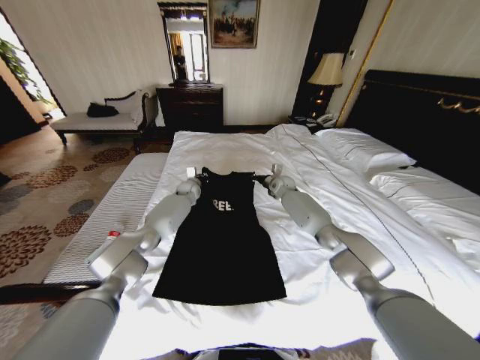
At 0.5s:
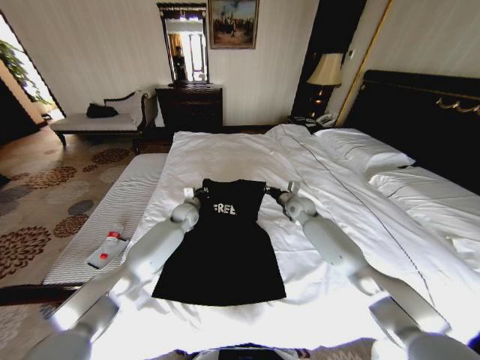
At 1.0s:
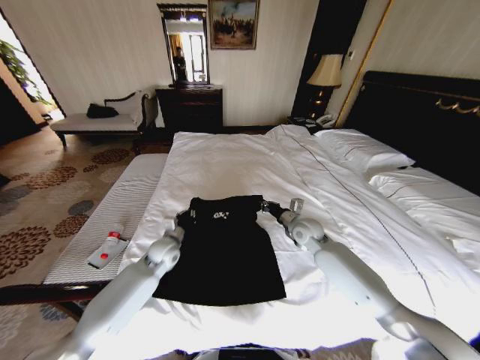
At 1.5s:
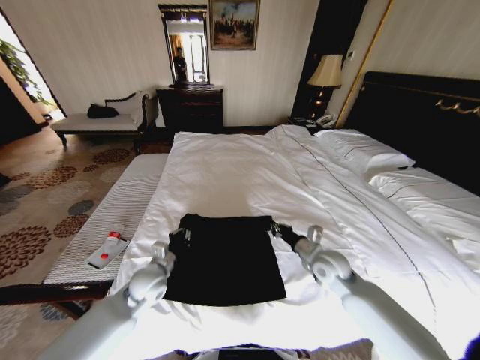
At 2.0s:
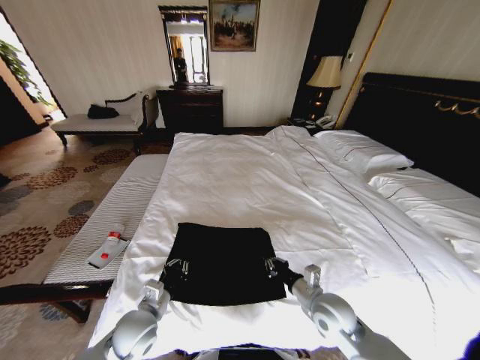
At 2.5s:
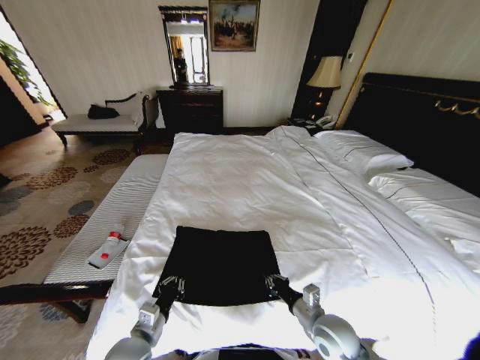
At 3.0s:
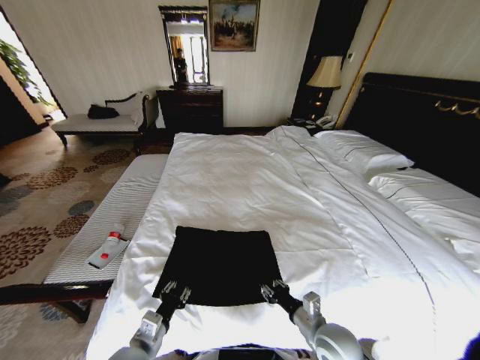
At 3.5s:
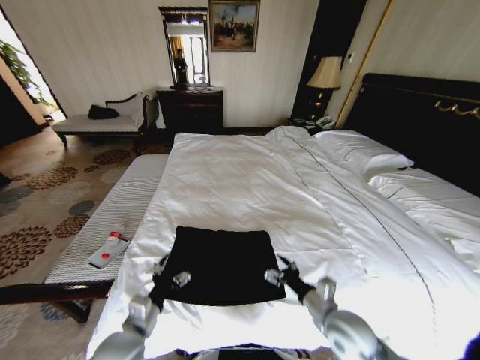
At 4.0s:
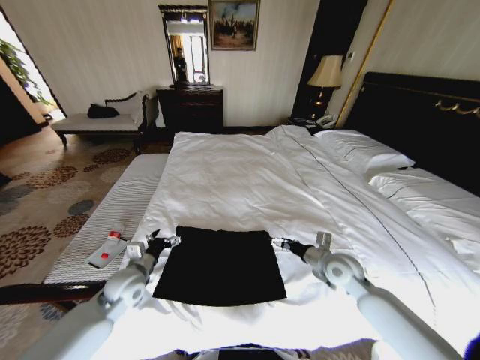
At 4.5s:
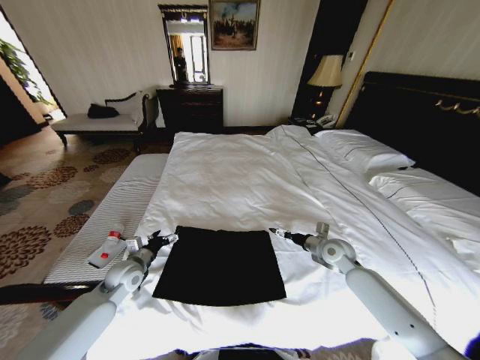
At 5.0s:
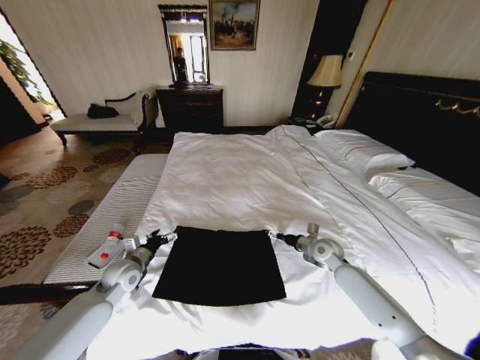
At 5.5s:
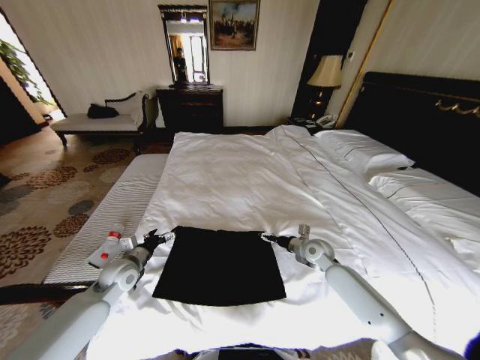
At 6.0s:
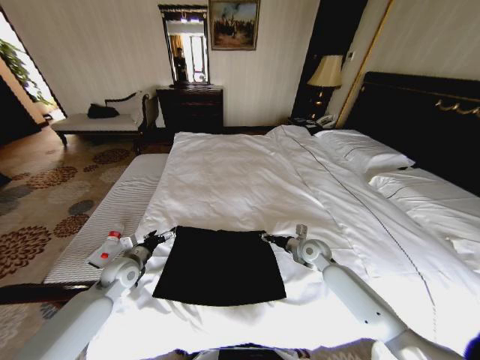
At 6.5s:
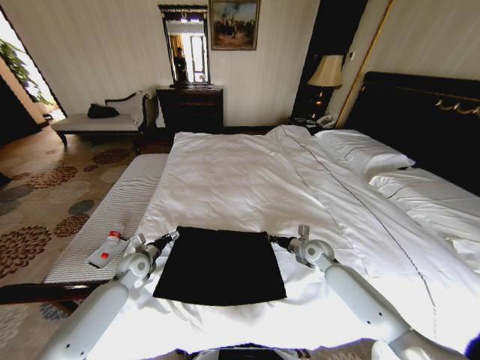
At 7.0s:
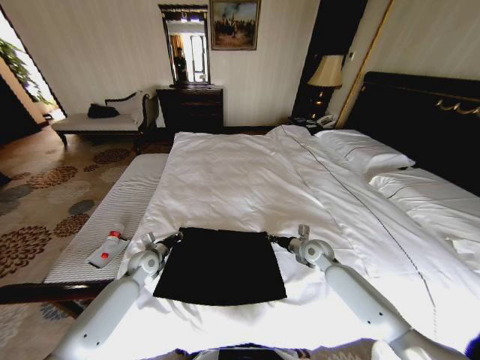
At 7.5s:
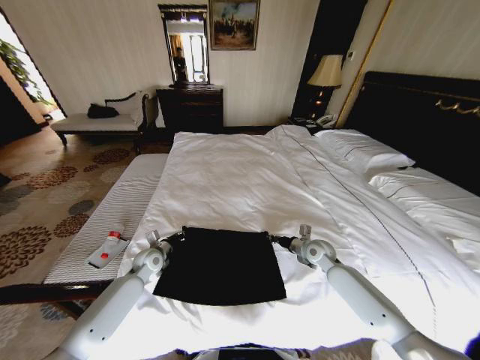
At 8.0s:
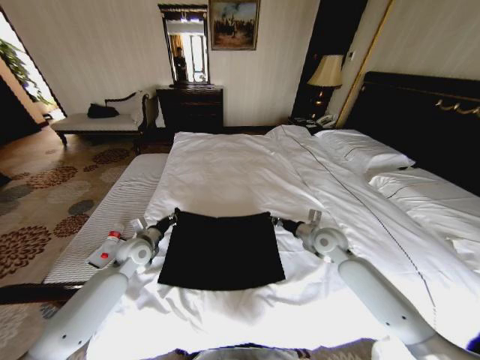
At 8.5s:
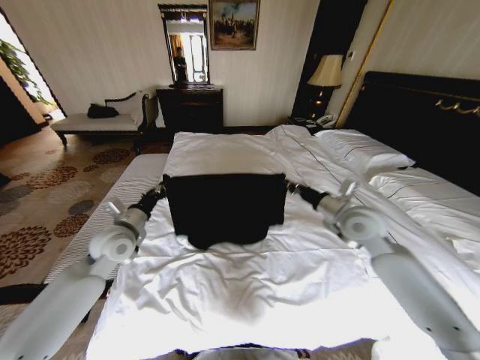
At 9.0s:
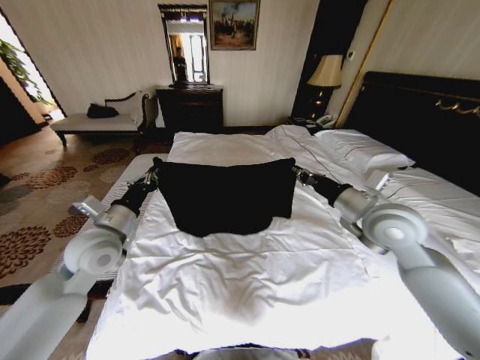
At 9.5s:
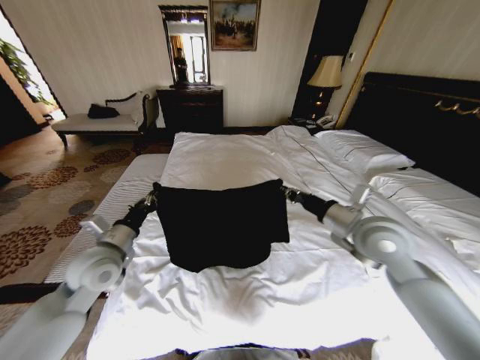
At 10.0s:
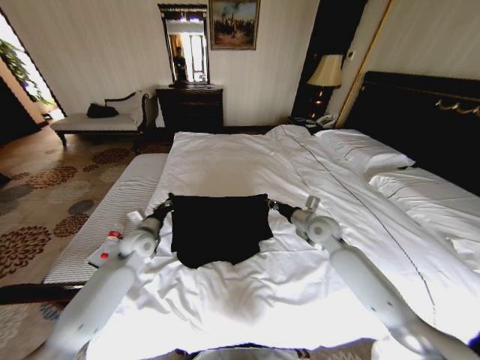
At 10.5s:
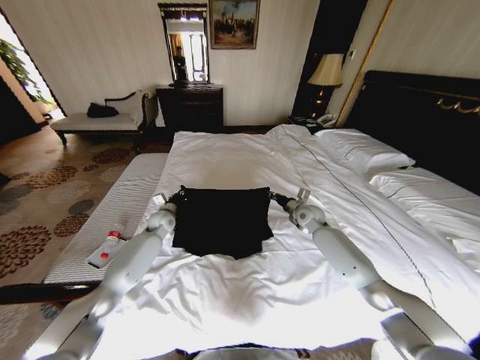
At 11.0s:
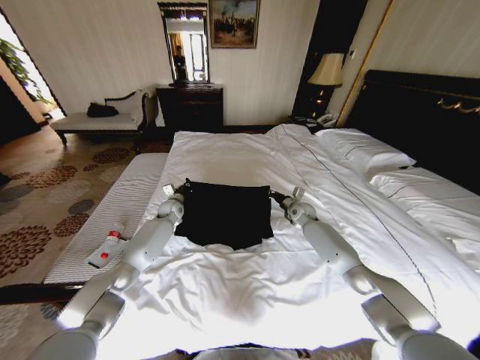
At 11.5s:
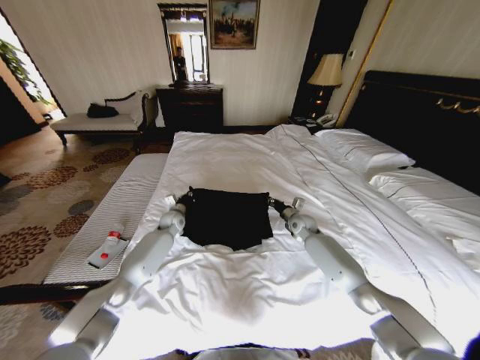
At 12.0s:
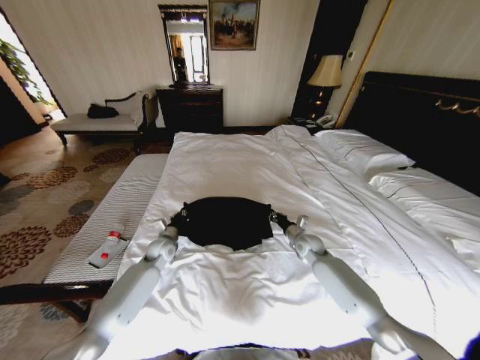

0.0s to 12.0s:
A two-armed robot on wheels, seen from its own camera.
Task of the whole recording: Fold the clothes on the bed.
0.0s to 2.0s: Both grippers travel together backward, some 40 cm.
2.0s to 4.0s: The right gripper is displaced forward and to the right by roughly 10 cm, and opens, while the left gripper goes roughly 10 cm forward and to the left, and opens.
4.0s to 6.0s: The left gripper shifts by some 5 cm, while the right gripper heads forward and downward, covering some 10 cm, and closes.
6.0s to 8.0s: The right gripper goes approximately 10 cm upward, and closes up. The left gripper travels forward by roughly 5 cm, and closes up.
8.0s to 10.0s: The left gripper reaches about 15 cm upward, then returns, while the right gripper reaches about 20 cm upward, then returns.
10.0s to 12.0s: The two grippers go some 10 cm downward. The right gripper goes forward and returns, about 15 cm each way; the left gripper goes forward and returns, about 15 cm each way.

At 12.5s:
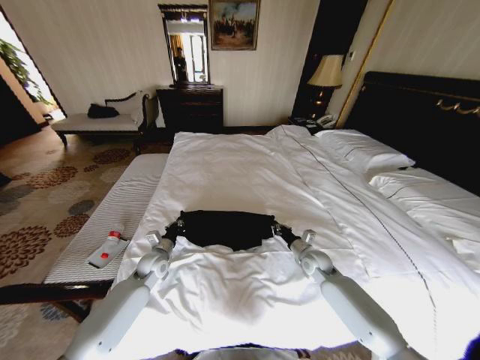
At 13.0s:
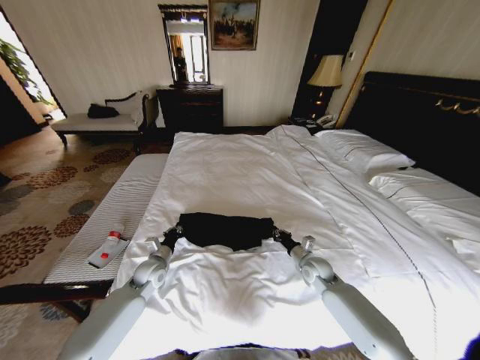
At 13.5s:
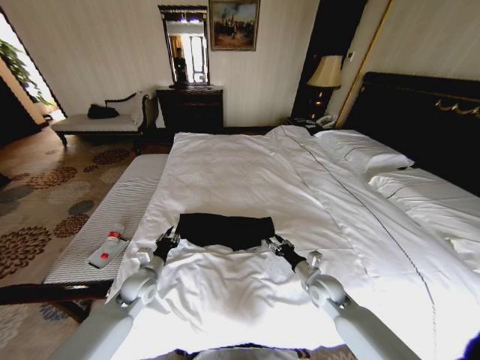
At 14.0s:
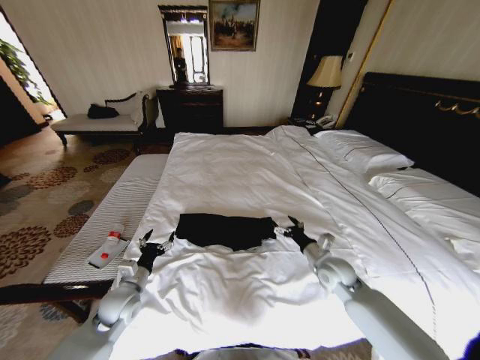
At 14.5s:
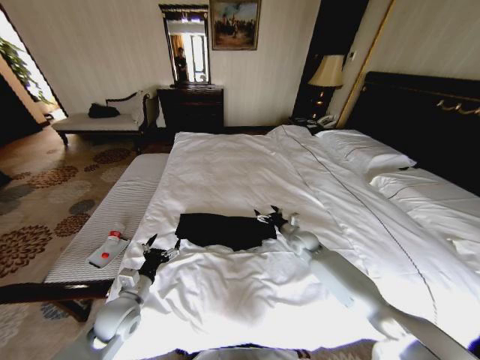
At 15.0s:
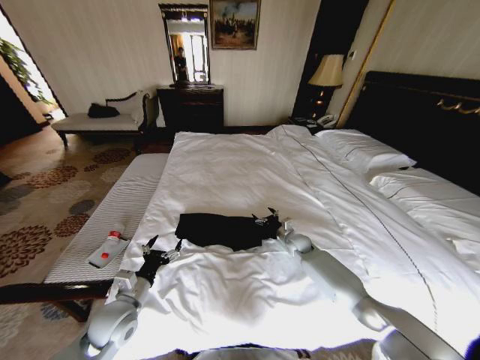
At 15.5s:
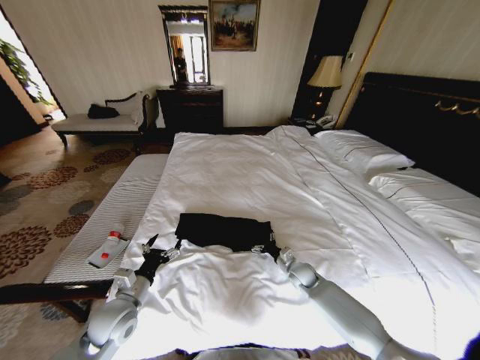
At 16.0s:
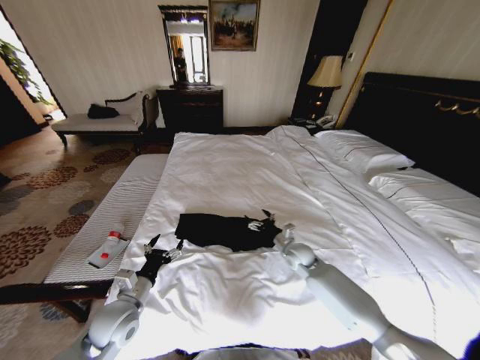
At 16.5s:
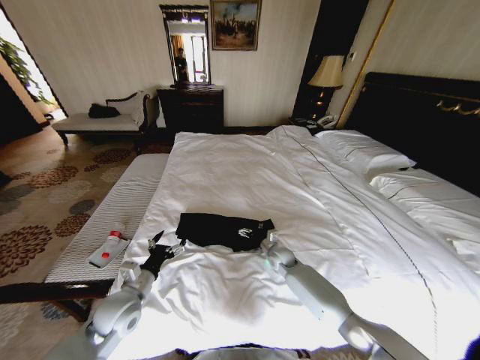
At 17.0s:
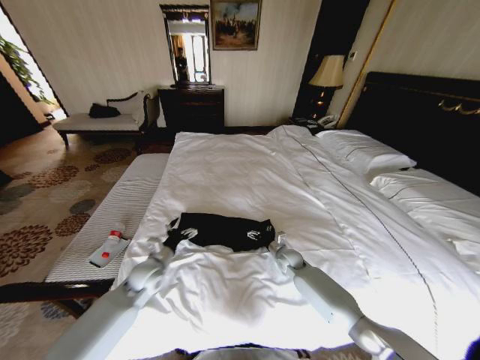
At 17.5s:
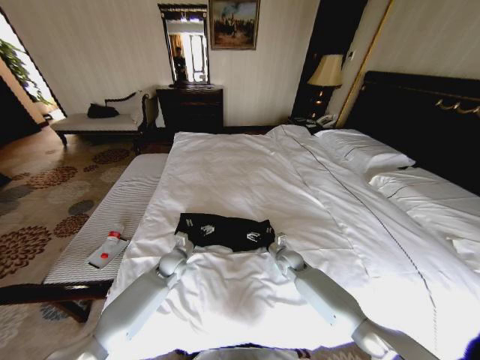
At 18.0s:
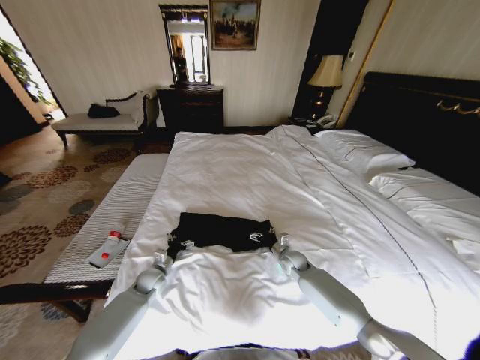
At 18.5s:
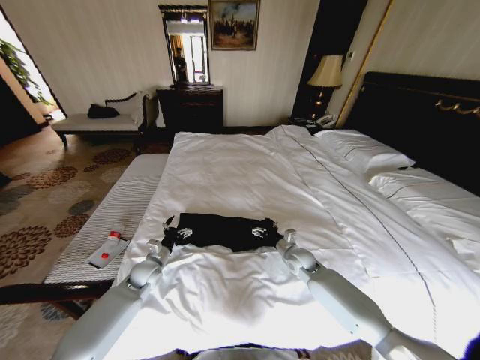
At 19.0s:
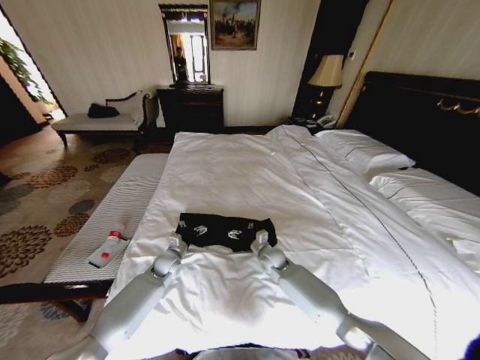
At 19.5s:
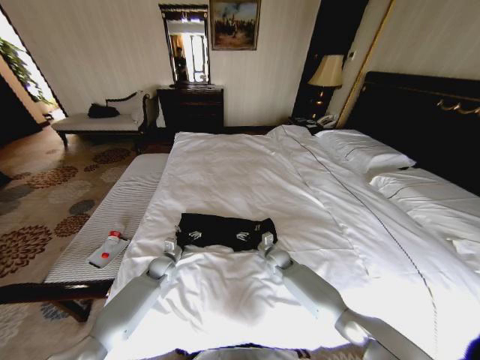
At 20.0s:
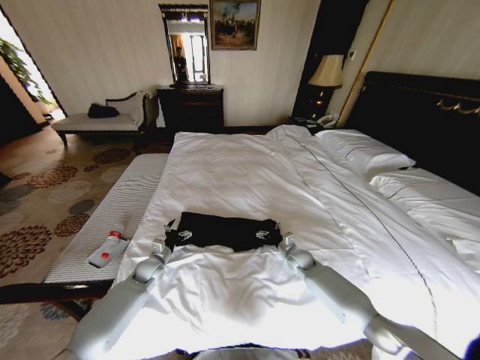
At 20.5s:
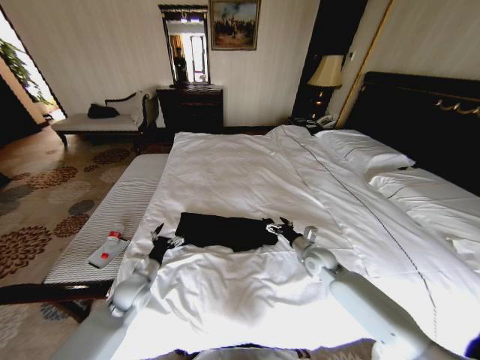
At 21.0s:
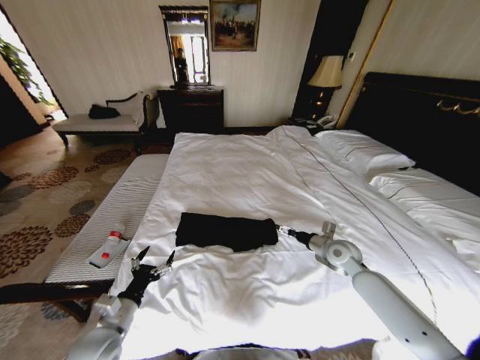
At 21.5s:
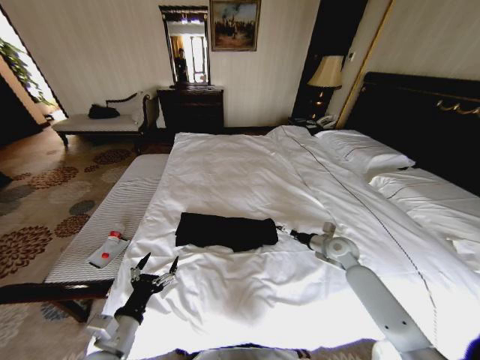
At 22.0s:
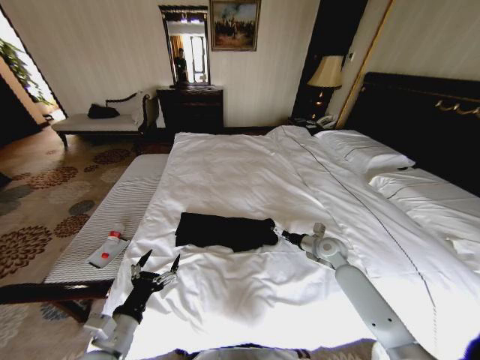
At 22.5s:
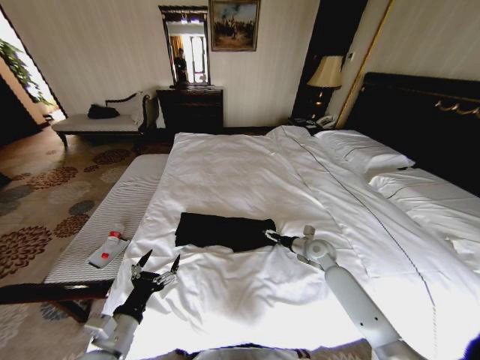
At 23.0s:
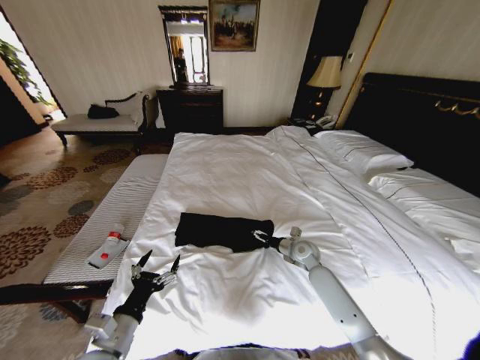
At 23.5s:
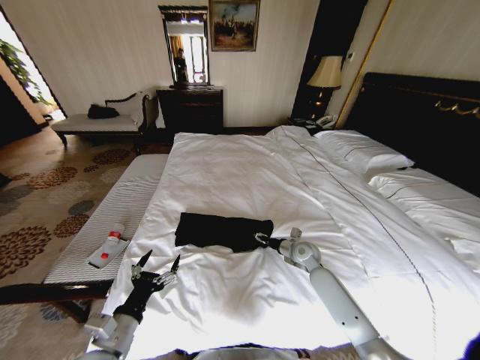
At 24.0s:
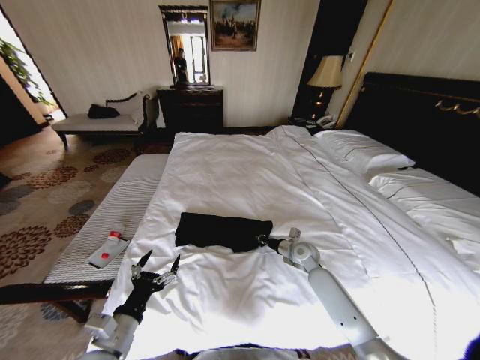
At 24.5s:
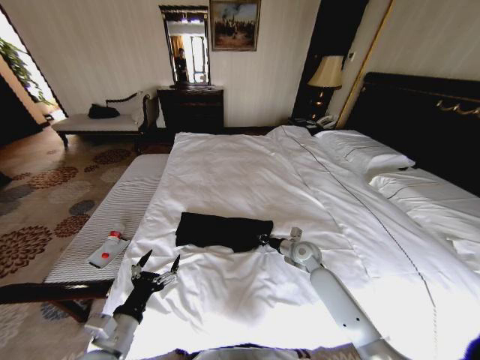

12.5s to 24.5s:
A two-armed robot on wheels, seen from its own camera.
Task of the whole recording: Fold the clothes on the bed.
12.5s to 14.5s: The right gripper heads forward, covering roughly 5 cm, and opens up, while the left gripper heads backward, covering about 15 cm, and opens.
14.5s to 16.5s: The right gripper goes some 10 cm to the left and downward, and reaches about 10 cm backward, then returns.
16.5s to 18.5s: The left gripper moves forward and downward, roughly 15 cm; the right gripper goes roughly 5 cm upward.
18.5s to 20.5s: The right gripper goes roughly 5 cm to the right; the left gripper heads backward, covering roughly 5 cm.
20.5s to 22.5s: The right gripper goes to the right and returns, about 10 cm each way, while the left gripper is displaced backward and upward by about 20 cm.
22.5s to 24.5s: The right gripper closes.

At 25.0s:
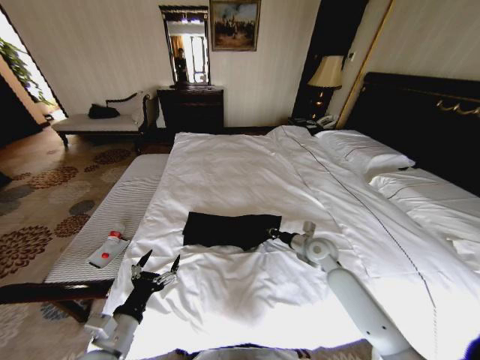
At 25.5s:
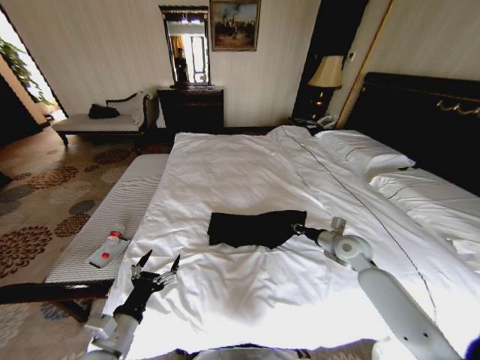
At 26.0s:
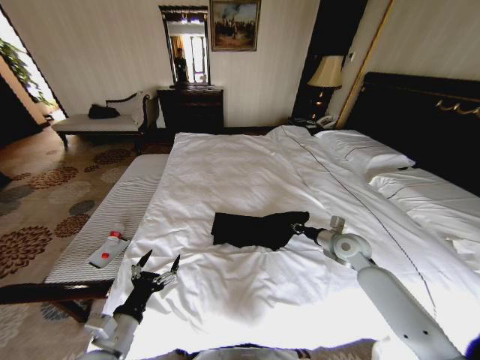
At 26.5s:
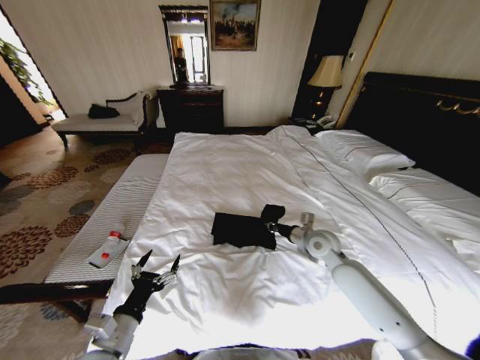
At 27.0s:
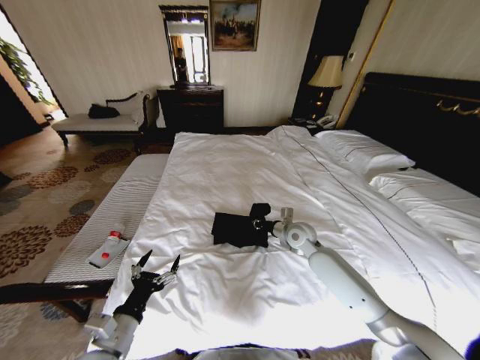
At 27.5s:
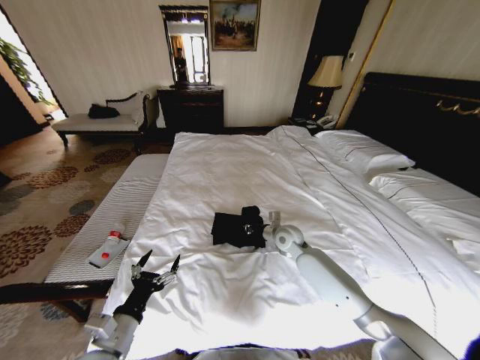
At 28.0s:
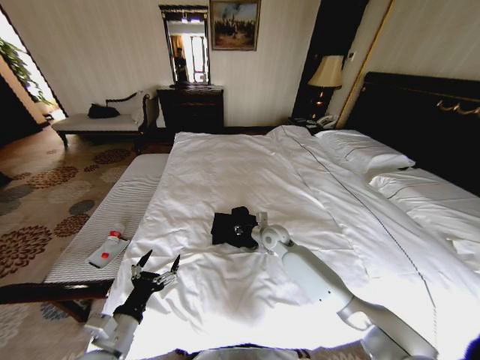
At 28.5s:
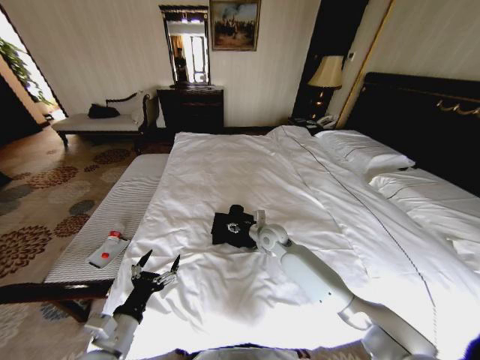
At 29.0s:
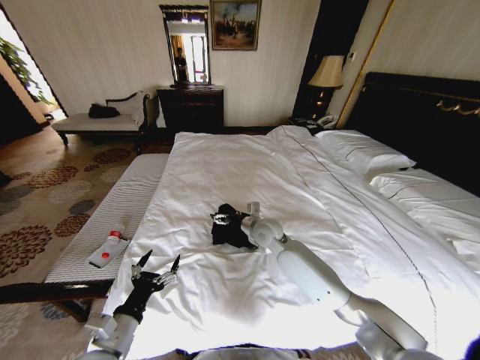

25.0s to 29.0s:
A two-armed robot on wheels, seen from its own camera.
Task of the whole recording: Fold the clothes on the bed.
25.0s to 27.0s: The right gripper shifts approximately 5 cm to the left.
27.0s to 29.0s: The right gripper travels to the left by about 10 cm, and opens its fingers.
